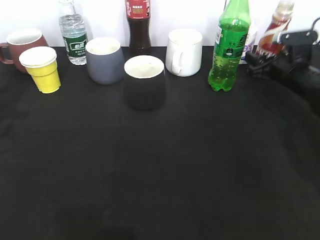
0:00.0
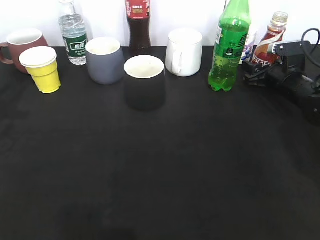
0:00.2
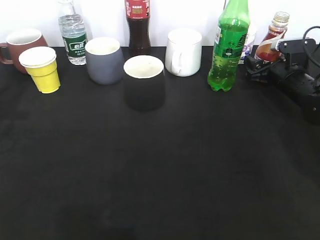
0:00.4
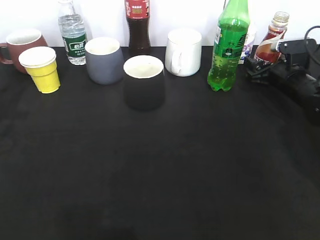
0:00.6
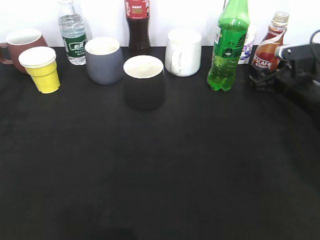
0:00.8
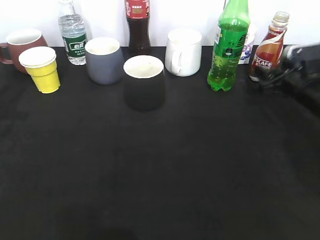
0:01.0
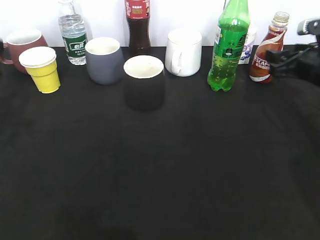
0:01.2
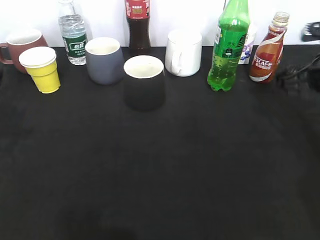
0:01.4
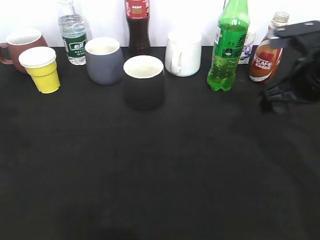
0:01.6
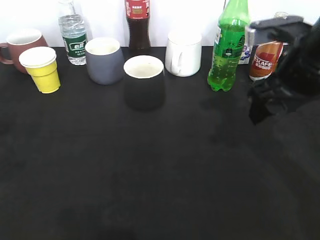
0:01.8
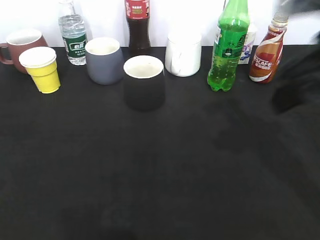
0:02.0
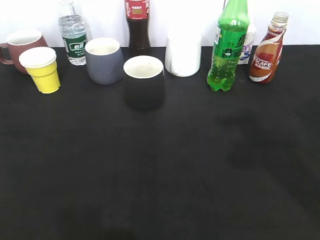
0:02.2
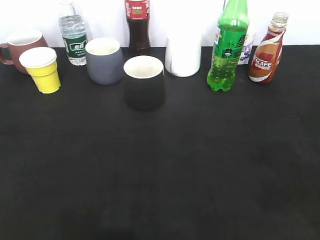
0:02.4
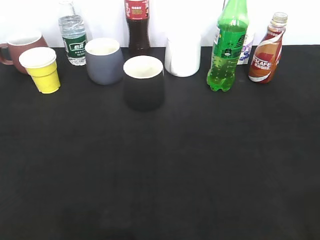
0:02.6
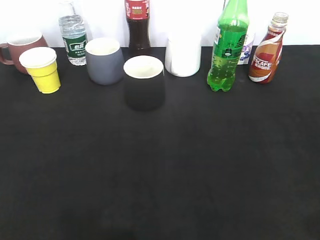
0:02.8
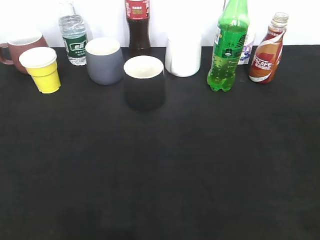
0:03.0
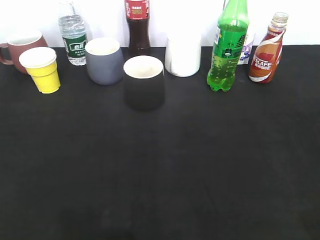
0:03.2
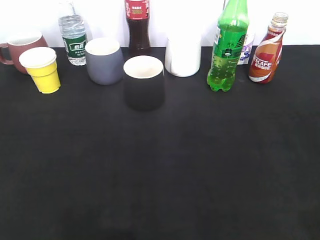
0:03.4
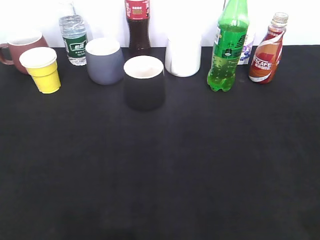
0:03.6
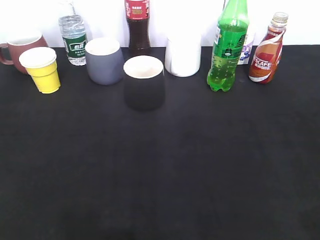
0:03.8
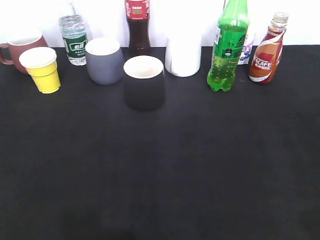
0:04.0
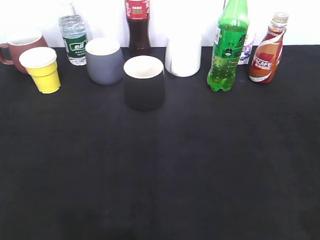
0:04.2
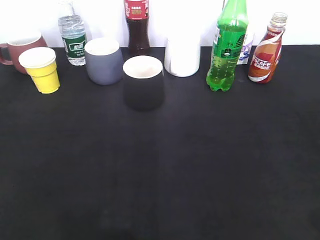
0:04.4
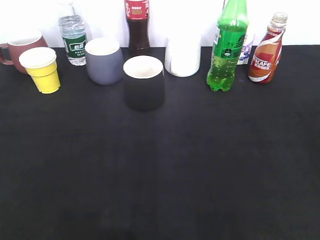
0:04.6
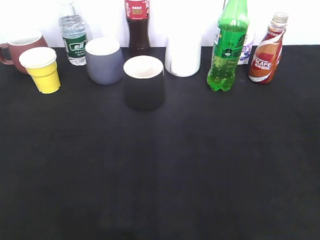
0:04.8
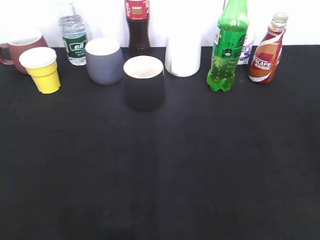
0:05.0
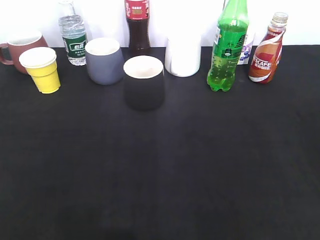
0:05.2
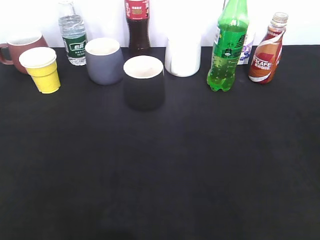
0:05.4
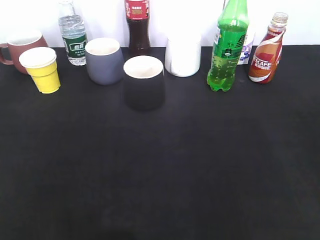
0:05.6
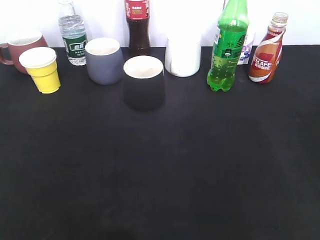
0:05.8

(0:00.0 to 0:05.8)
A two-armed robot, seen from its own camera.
0:00.0 - 0:01.4: The right gripper heads backward and upward, covering roughly 15 cm, and opens up.
0:01.4 - 0:02.8: The two grippers go roughly 25 cm backward. The right gripper closes its fingers.
0:02.8 - 0:04.4: The right gripper opens.
0:04.4 - 0:05.8: The left gripper closes.

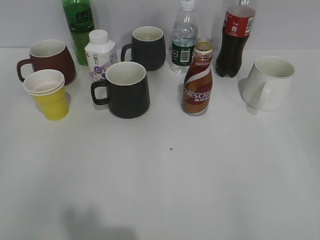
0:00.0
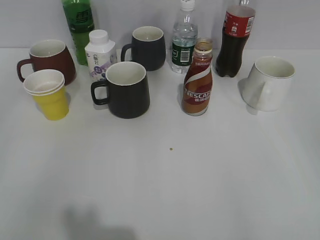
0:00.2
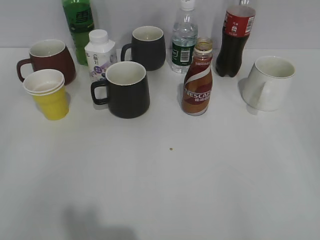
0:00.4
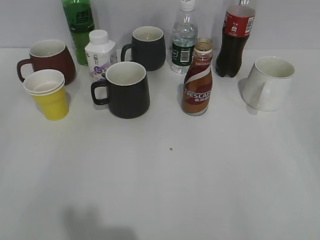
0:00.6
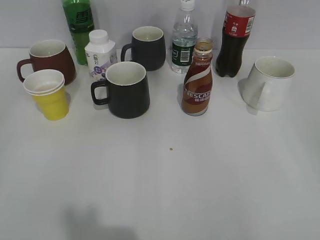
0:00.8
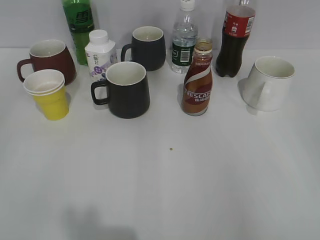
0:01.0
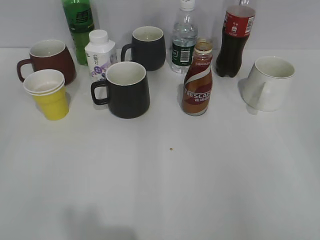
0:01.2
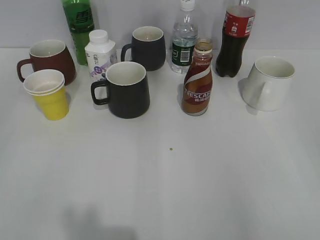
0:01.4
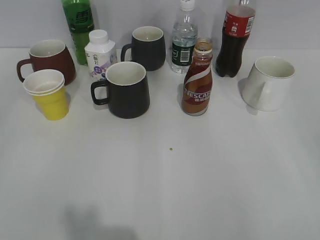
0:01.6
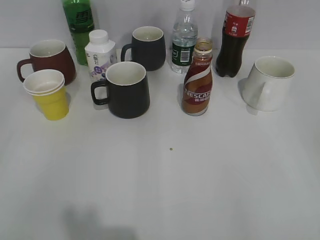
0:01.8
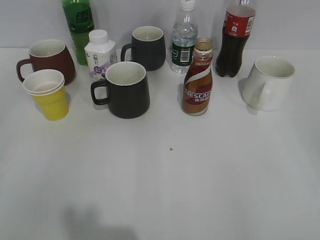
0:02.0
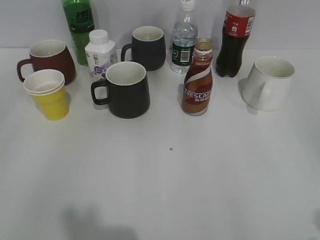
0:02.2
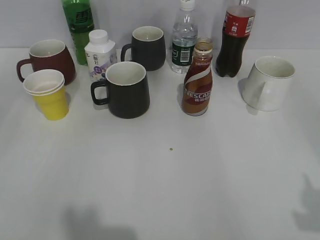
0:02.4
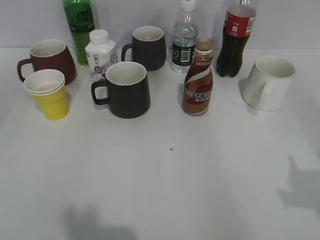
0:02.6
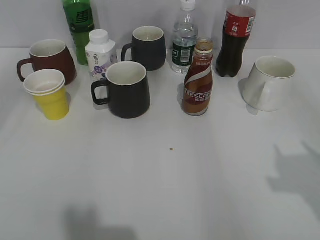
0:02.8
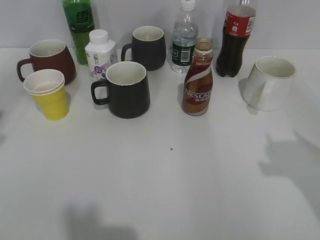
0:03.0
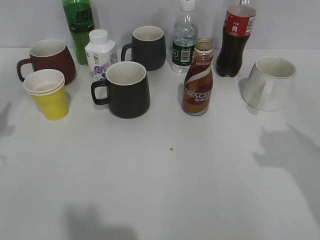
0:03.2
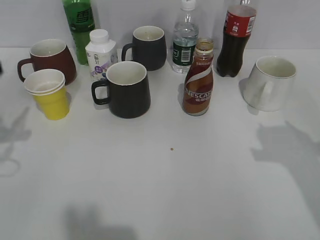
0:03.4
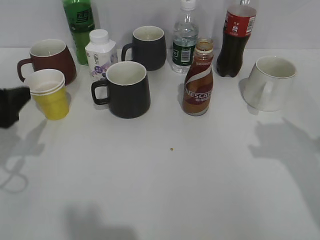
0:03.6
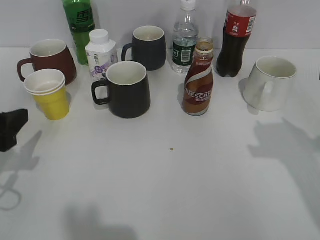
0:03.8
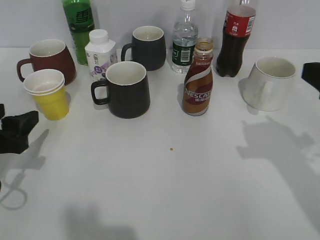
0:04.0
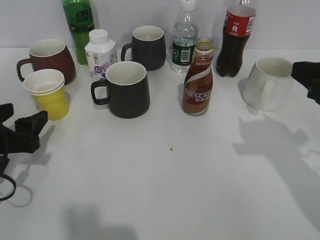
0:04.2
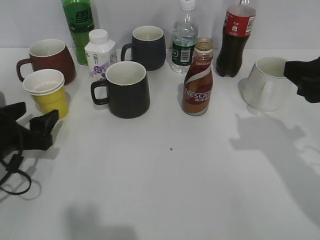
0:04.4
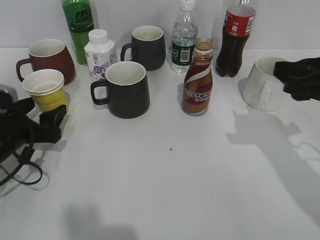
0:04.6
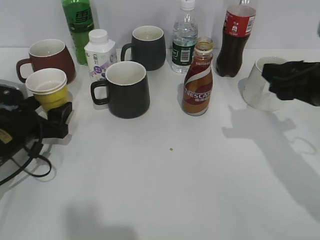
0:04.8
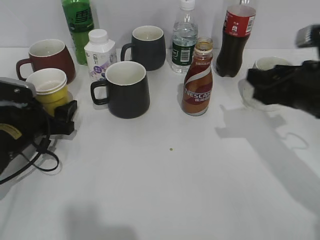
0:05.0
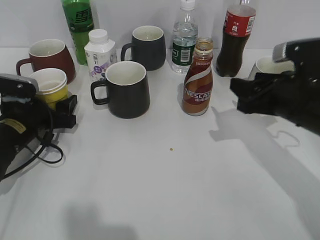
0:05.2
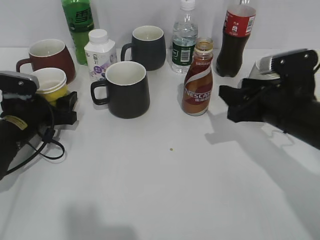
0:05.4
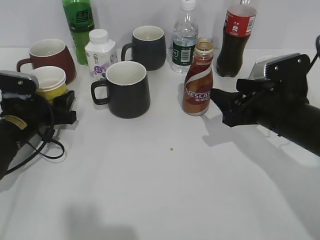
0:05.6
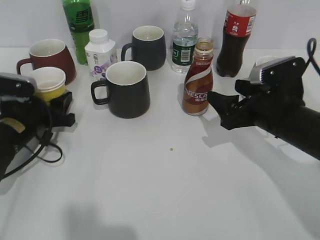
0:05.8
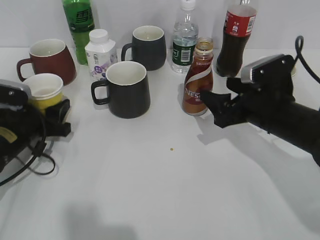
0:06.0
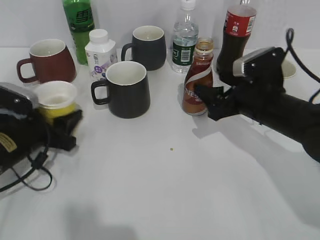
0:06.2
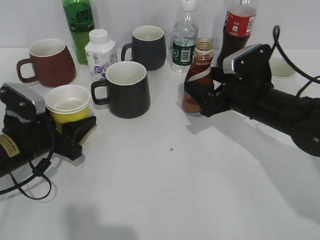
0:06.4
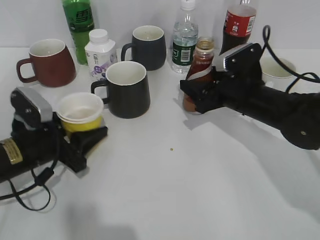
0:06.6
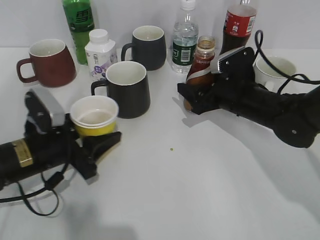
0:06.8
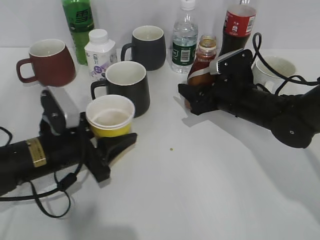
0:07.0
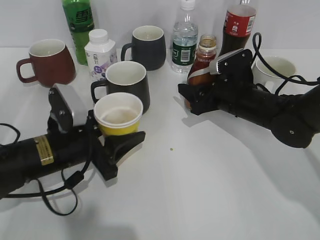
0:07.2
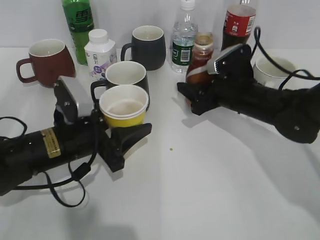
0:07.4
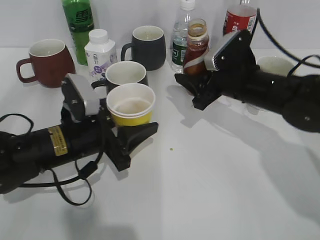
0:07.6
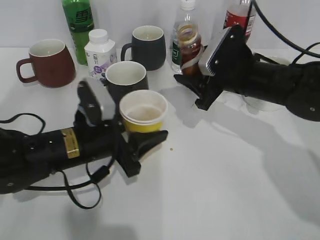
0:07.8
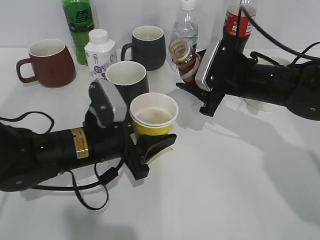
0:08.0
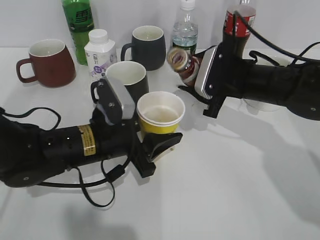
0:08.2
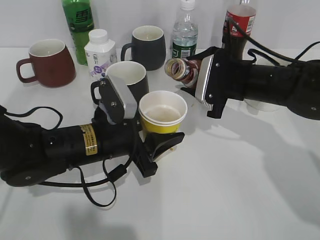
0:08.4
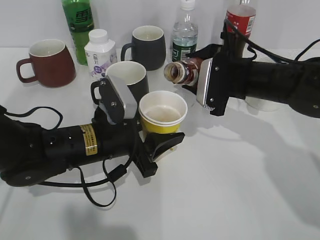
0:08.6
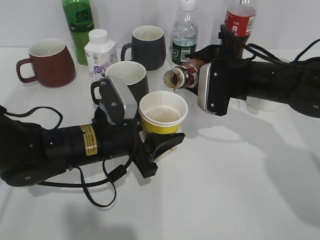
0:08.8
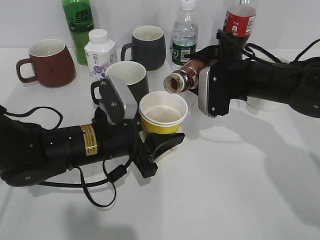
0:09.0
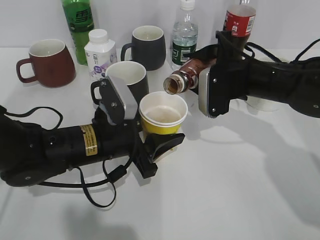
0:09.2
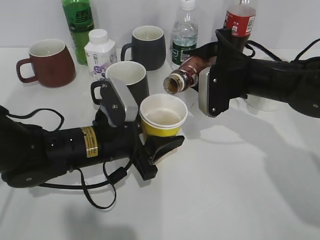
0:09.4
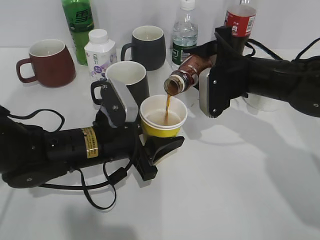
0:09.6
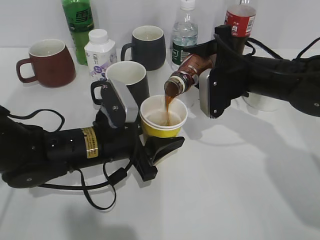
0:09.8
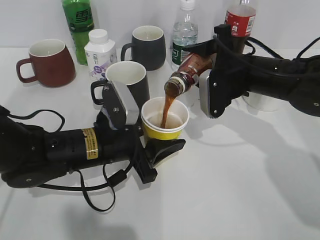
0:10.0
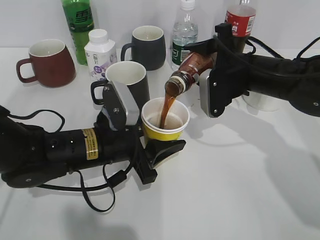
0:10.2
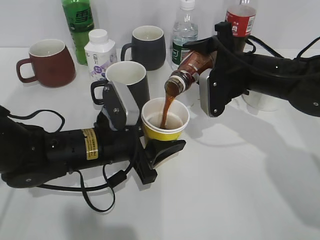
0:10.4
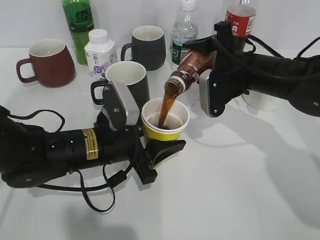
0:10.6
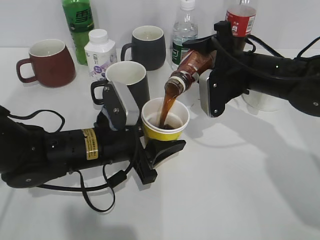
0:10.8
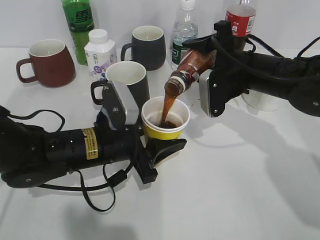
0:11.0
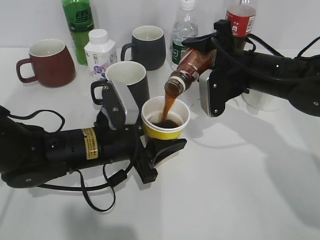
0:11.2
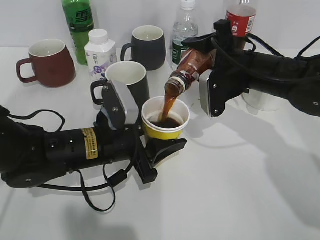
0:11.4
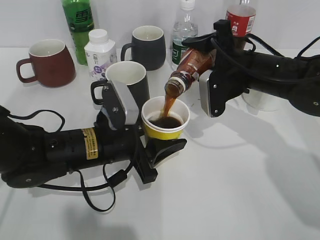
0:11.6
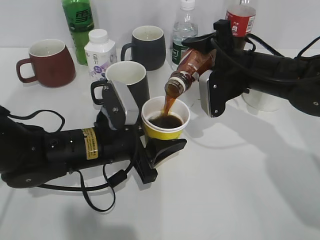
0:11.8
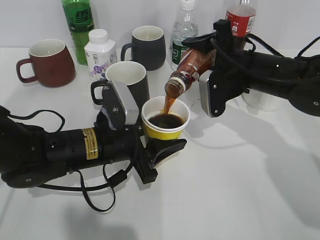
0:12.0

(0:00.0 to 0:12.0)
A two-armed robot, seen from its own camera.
Step, 0:01.8 - 0:05.4: Grasp the yellow paper cup with left gripper.
Step, 0:05.6 - 0:07.2: Grasp the bottle with coffee with right gripper.
0:03.0 - 0:04.4: The right gripper shifts about 10 cm forward; the left gripper heads downward and forward, covering some 15 cm.
0:04.4 - 0:06.0: The right gripper travels downward, forward and to the left by some 15 cm, and opens. Meanwhile the left gripper heads forward, covering roughly 5 cm, and closes its fingers.
0:06.0 - 0:07.6: The right gripper shifts about 5 cm forward, and closes up, while the left gripper moves to the right, about 10 cm.
0:09.0 - 0:10.4: The grippers stay close to where they were, moving slightly.
0:10.4 - 0:12.0: The two grippers keep their place.

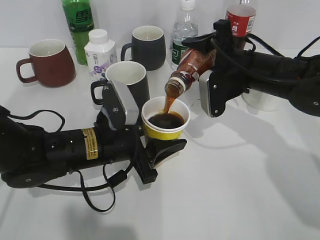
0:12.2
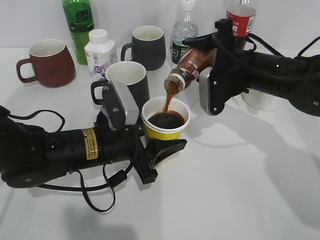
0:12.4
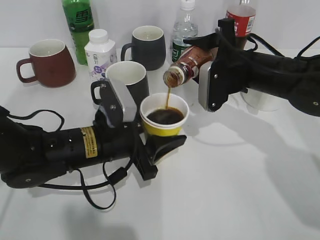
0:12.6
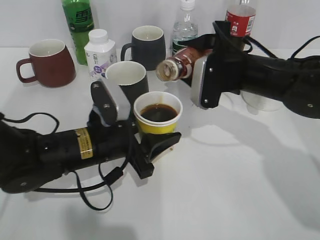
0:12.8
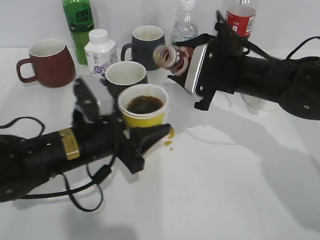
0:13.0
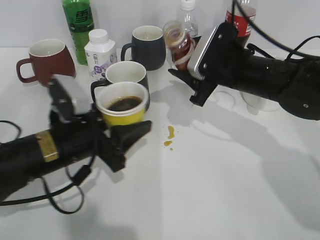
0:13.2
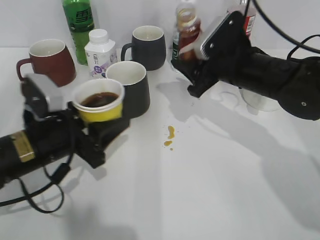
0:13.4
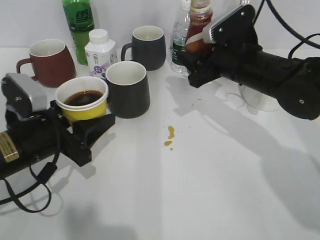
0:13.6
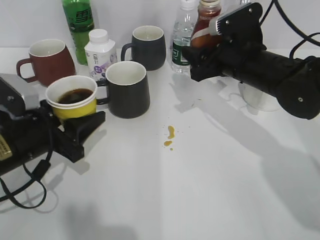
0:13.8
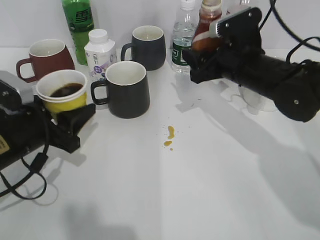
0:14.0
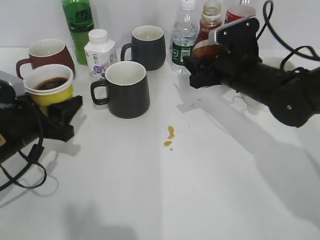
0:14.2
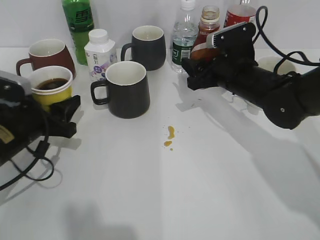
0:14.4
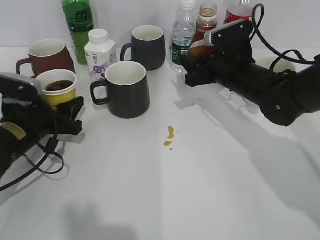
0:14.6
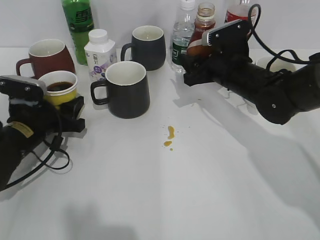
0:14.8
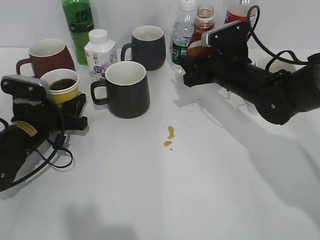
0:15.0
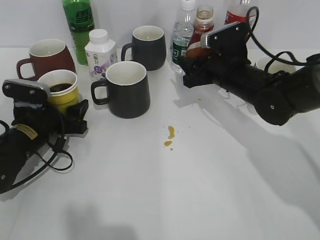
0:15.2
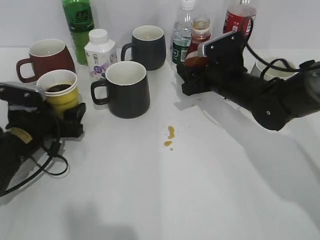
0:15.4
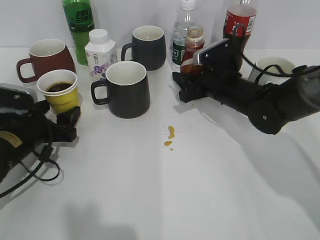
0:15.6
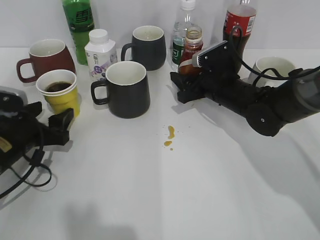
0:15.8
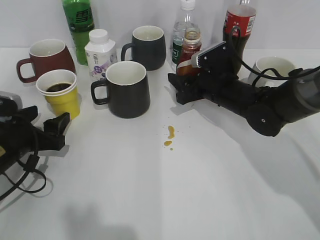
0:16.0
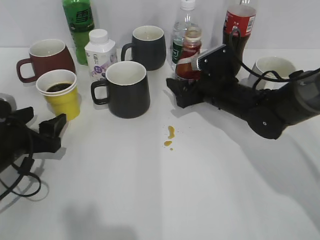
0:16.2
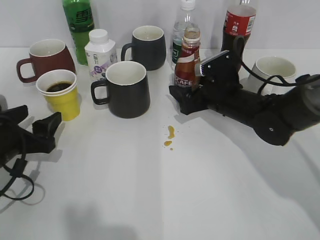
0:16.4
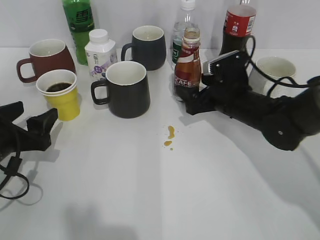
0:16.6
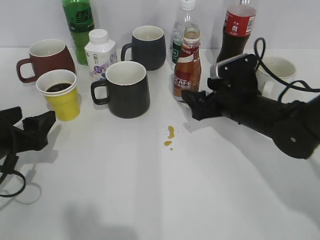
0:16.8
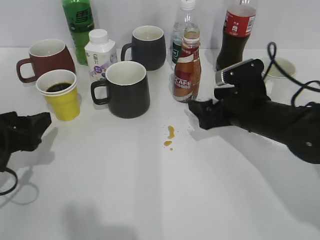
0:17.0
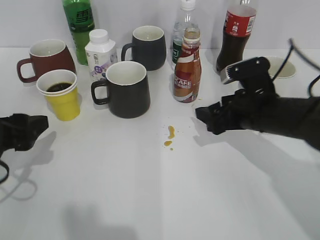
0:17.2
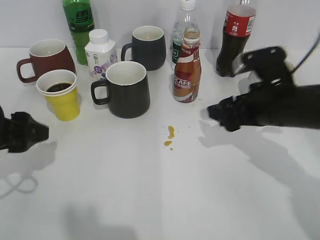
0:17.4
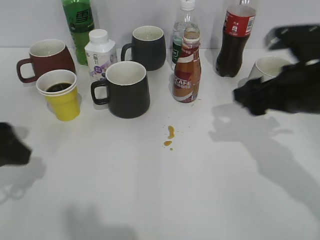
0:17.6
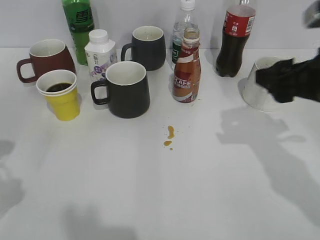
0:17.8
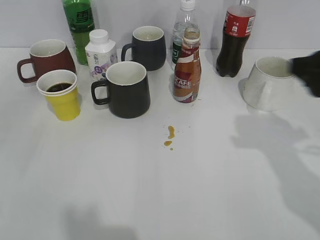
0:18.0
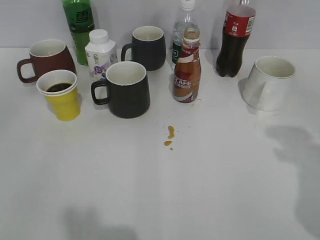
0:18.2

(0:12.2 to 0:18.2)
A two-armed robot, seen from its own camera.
Step, 0:13.0 - 0:15.2: Place the yellow paper cup on the table with left gripper.
Step, 0:15.4 - 0:16.8: Place the coffee bottle on the table with right gripper.
0:12.2 - 0:13.8: The left gripper goes some 10 cm to the left.
0:13.8 - 0:15.2: The left gripper travels forward and downward by roughly 10 cm, and opens up. Meanwhile the right gripper shifts by about 5 cm.
0:15.2 - 0:16.6: The left gripper travels backward by approximately 10 cm. Meanwhile the right gripper opens its fingers.
0:16.6 - 0:18.2: The left gripper heads upward and backward, covering about 25 cm. The right gripper shifts about 30 cm upward, backward and to the right.
